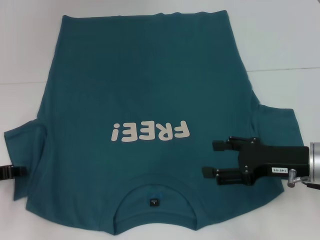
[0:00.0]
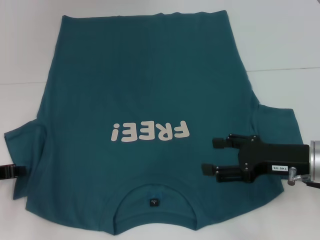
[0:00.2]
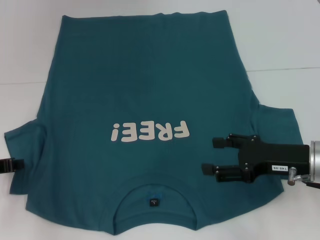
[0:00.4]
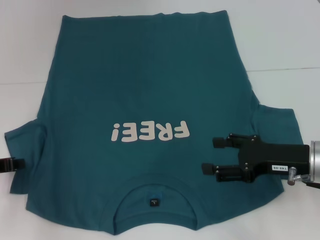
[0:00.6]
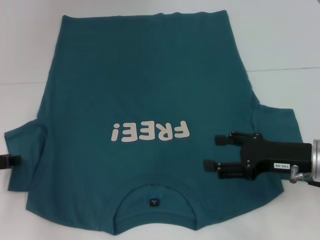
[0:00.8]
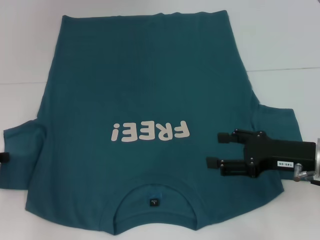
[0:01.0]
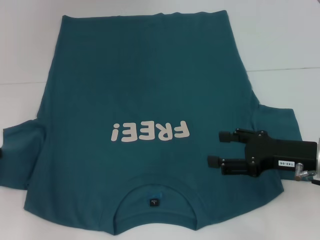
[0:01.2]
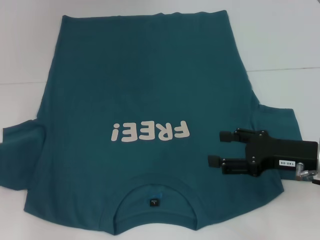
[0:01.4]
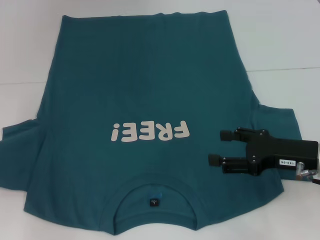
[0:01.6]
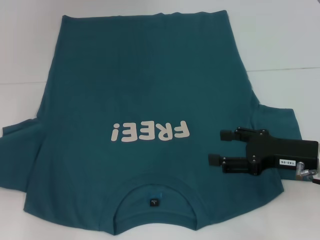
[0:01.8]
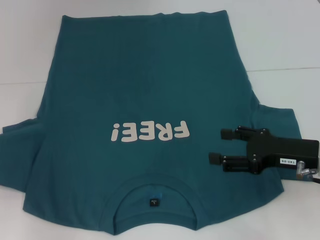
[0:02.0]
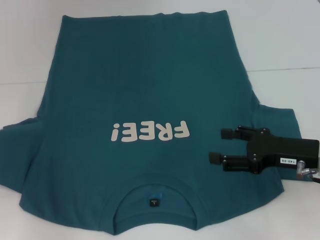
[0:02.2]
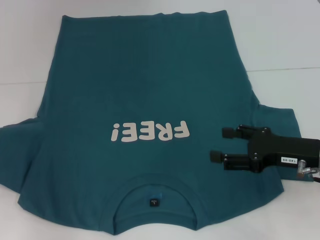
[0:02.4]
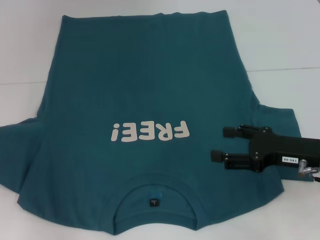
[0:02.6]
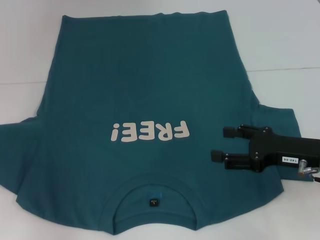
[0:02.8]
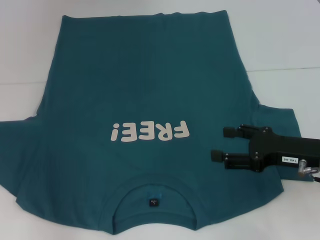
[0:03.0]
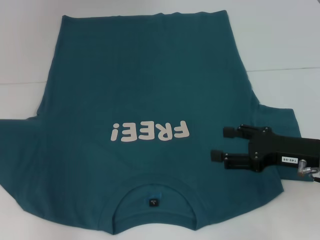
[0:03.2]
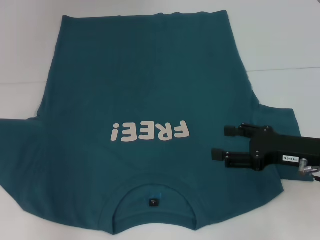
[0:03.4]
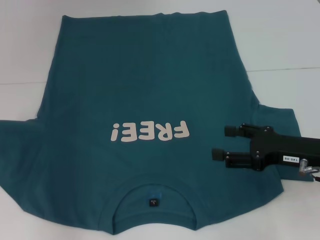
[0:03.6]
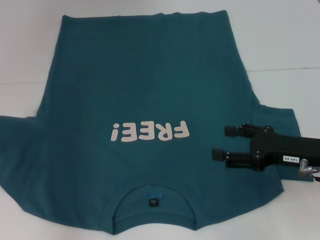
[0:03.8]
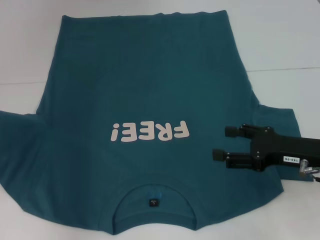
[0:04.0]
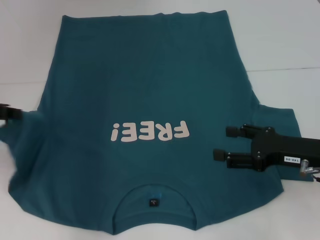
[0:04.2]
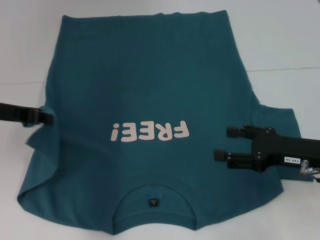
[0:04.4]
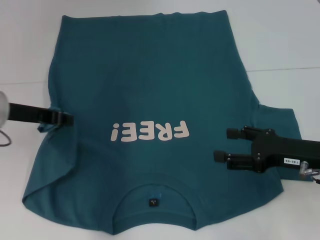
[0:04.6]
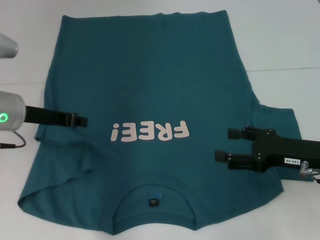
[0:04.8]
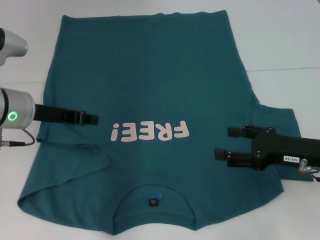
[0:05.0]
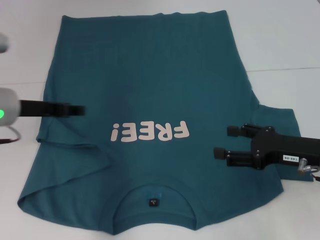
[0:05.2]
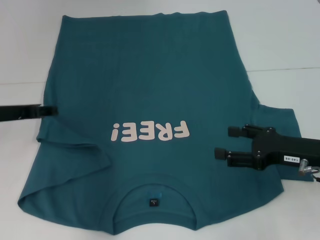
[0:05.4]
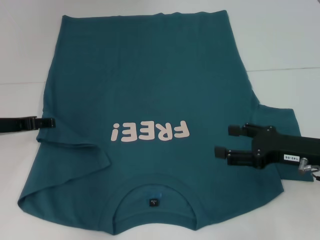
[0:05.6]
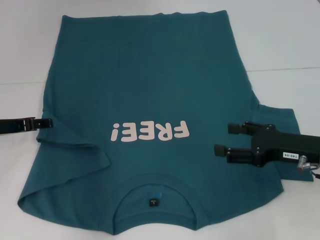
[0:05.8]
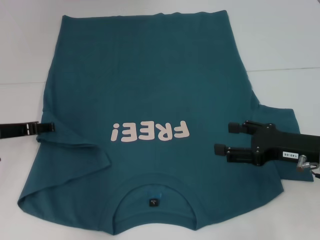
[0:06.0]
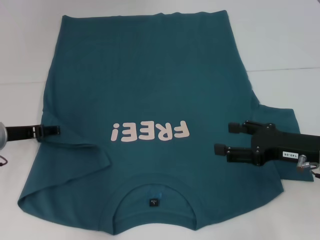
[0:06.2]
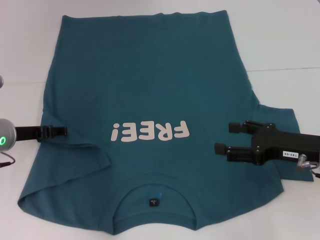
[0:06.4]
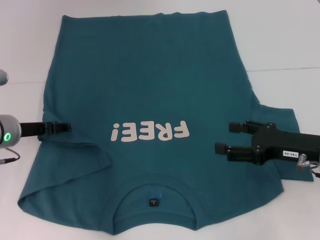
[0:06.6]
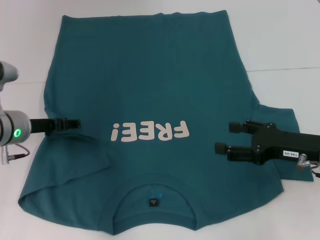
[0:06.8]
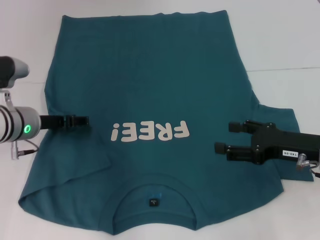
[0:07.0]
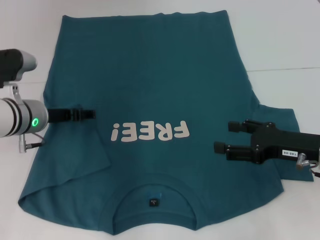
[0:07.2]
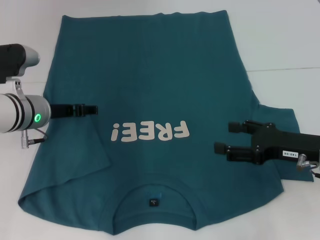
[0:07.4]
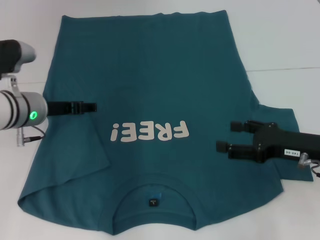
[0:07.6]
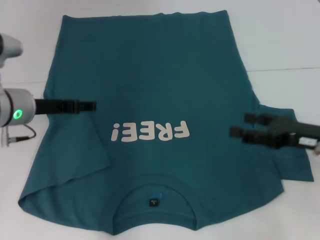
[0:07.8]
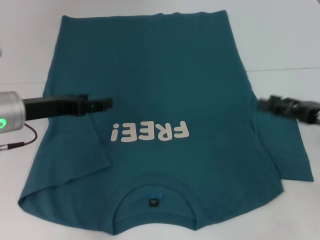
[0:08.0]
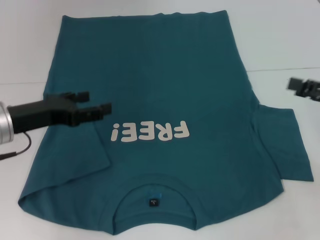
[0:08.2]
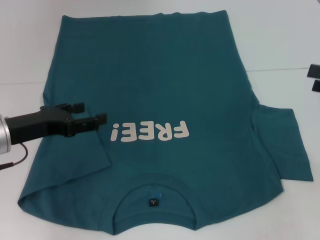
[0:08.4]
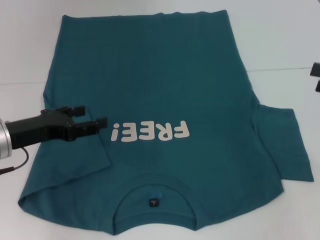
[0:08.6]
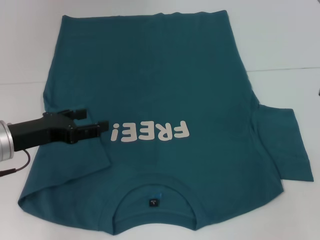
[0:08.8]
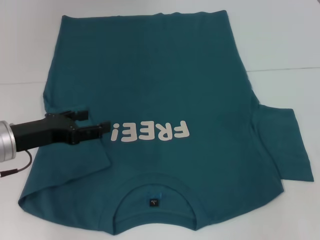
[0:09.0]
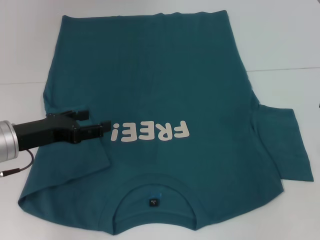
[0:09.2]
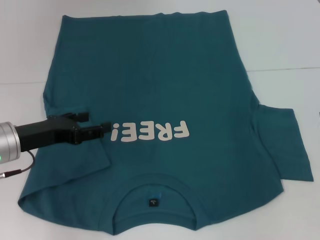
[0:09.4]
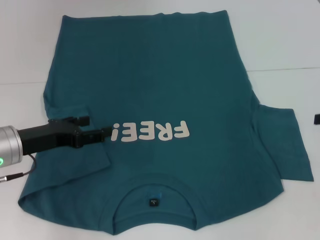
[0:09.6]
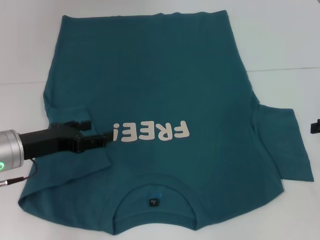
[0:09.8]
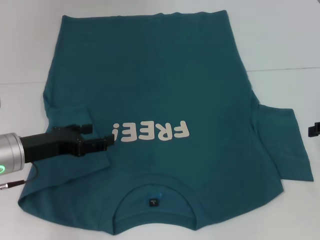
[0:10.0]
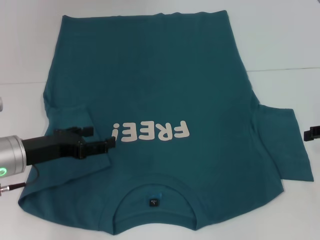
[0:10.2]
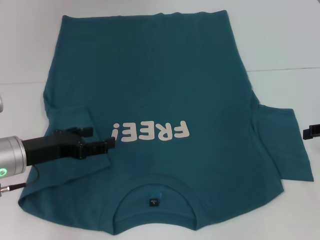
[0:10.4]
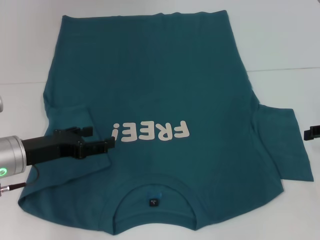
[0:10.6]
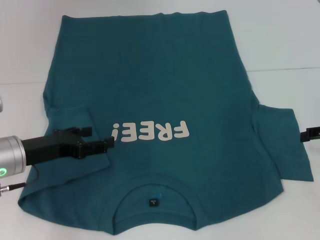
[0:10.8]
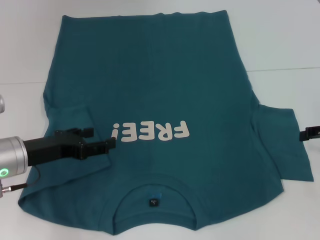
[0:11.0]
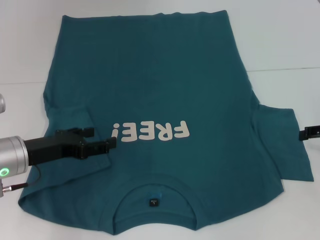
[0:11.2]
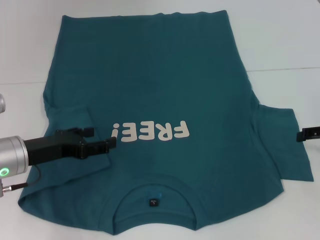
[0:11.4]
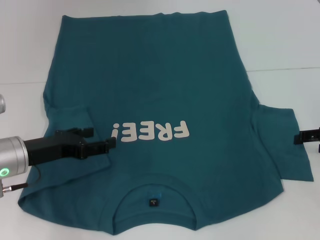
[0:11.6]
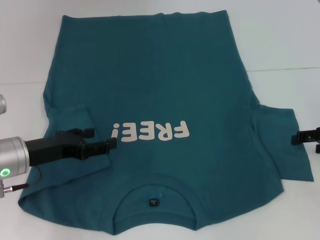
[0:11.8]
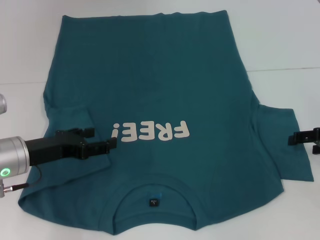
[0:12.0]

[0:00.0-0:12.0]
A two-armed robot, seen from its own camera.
Step, 0:00.0 to 0:07.4: Fold the bottom left sleeve with your left hand.
0:00.0 to 0:01.6: The left gripper moves approximately 5 cm, and closes.
0:01.6 to 0:03.0: There are only small adjustments of the grippers.
0:03.0 to 0:04.4: The left gripper travels to the right by about 10 cm.
0:04.4 to 0:06.0: The left gripper moves downward, some 10 cm, and opens its fingers.
0:06.0 to 0:07.6: The left gripper travels to the right by approximately 5 cm.
0:07.6 to 0:09.0: The left gripper travels backward by approximately 10 cm, while the right gripper shifts some 15 cm to the right and upward.
0:10.4 to 0:12.0: The grippers make only small movements.

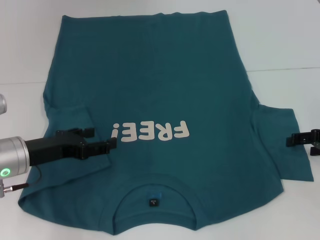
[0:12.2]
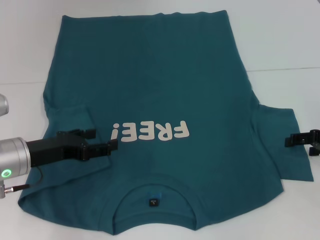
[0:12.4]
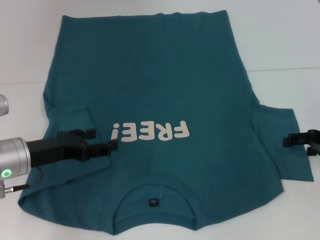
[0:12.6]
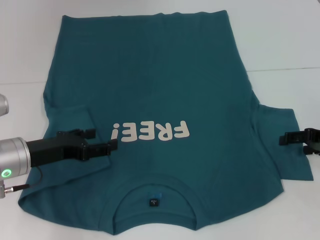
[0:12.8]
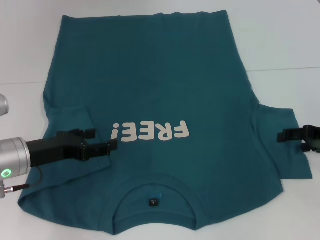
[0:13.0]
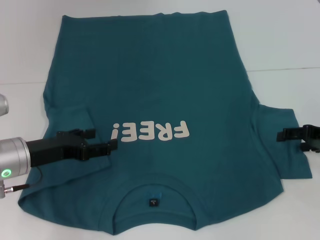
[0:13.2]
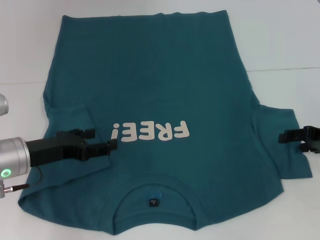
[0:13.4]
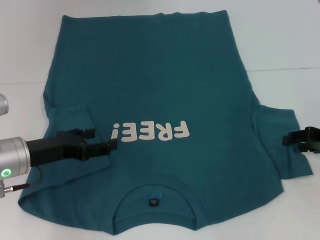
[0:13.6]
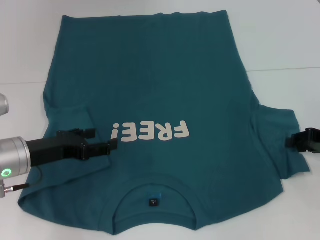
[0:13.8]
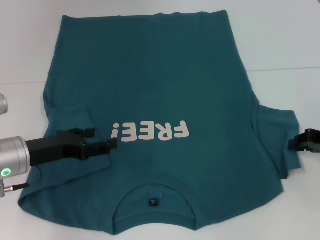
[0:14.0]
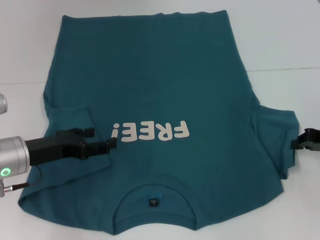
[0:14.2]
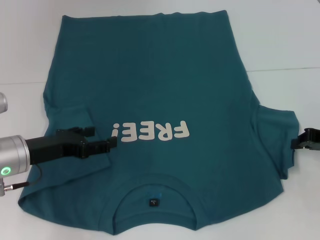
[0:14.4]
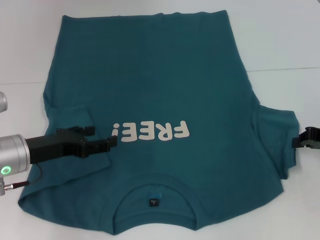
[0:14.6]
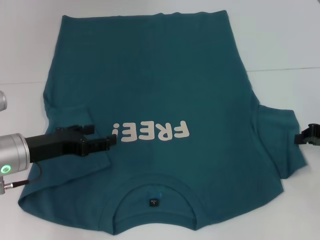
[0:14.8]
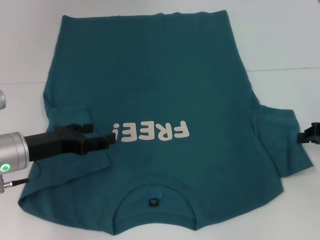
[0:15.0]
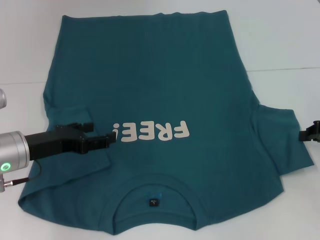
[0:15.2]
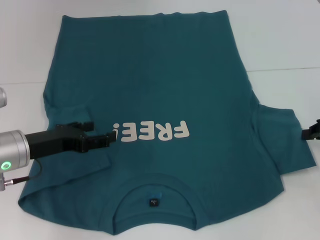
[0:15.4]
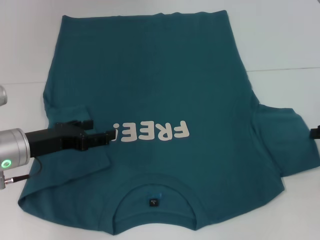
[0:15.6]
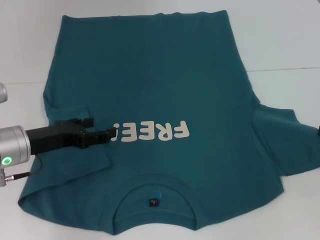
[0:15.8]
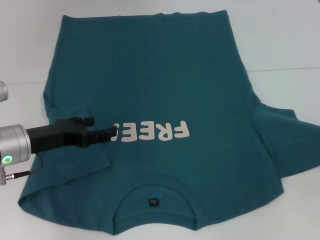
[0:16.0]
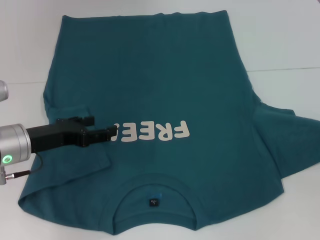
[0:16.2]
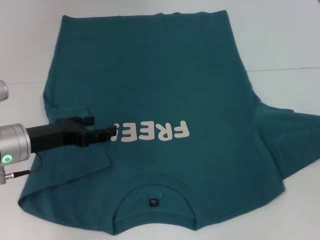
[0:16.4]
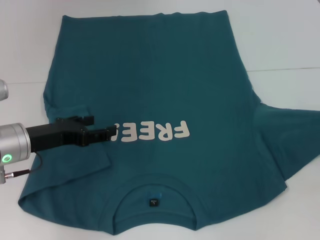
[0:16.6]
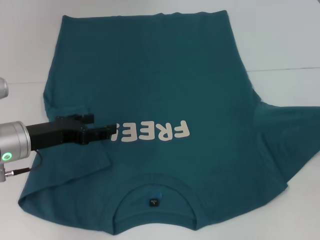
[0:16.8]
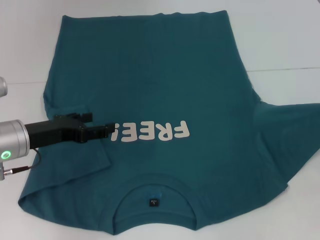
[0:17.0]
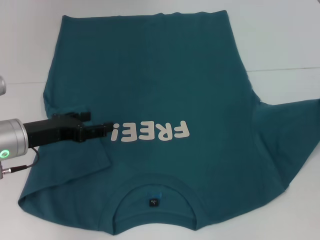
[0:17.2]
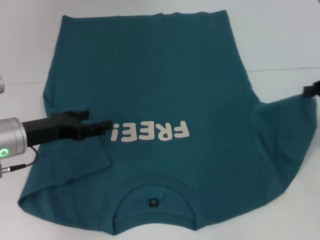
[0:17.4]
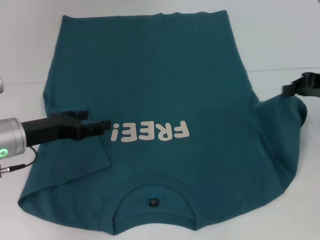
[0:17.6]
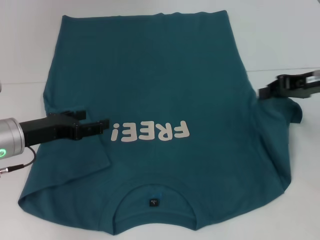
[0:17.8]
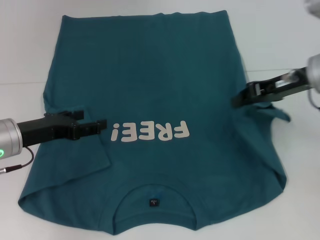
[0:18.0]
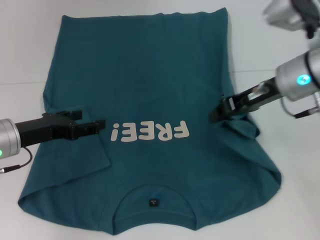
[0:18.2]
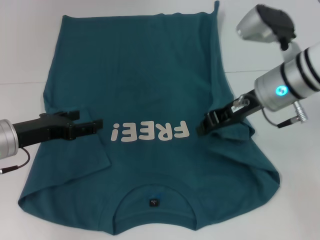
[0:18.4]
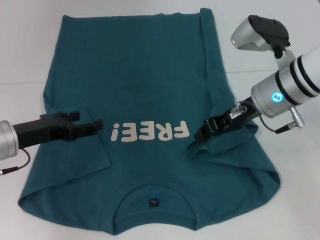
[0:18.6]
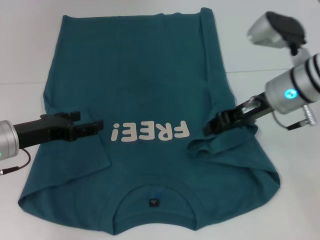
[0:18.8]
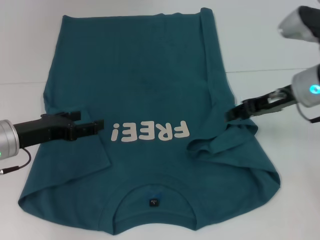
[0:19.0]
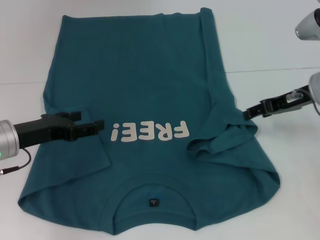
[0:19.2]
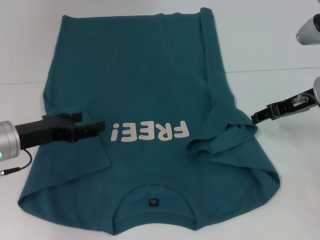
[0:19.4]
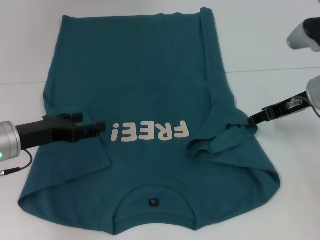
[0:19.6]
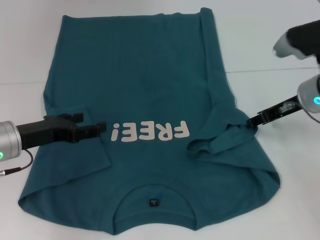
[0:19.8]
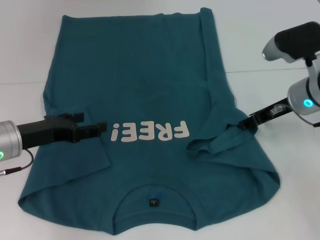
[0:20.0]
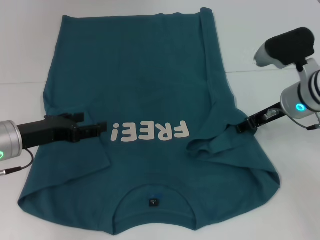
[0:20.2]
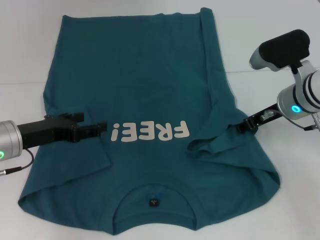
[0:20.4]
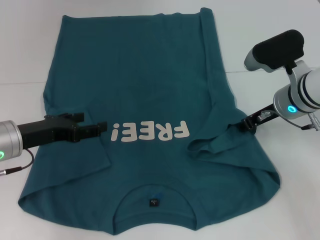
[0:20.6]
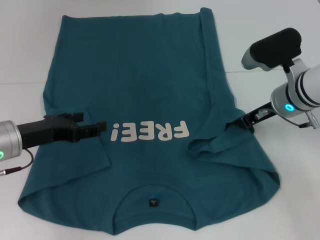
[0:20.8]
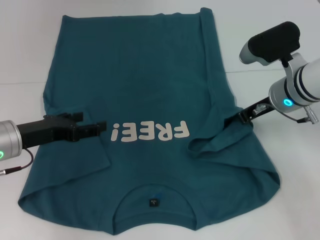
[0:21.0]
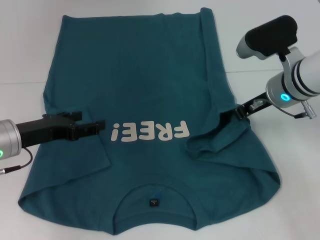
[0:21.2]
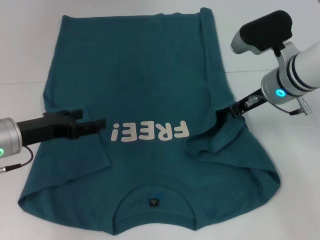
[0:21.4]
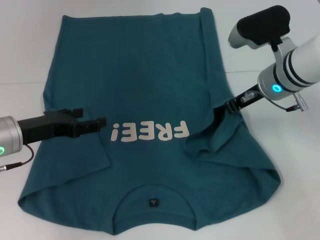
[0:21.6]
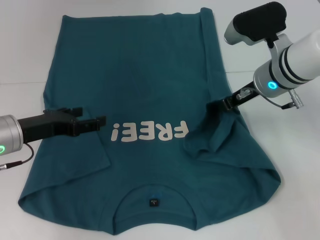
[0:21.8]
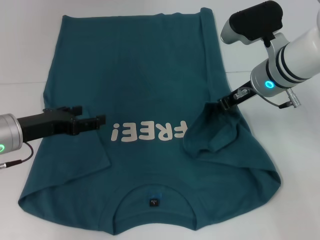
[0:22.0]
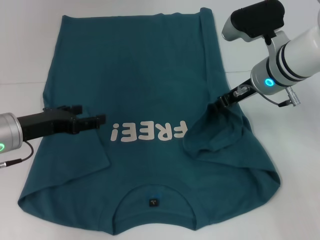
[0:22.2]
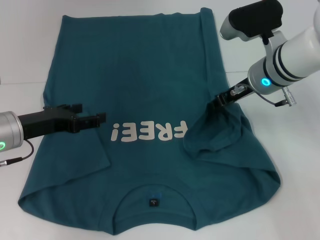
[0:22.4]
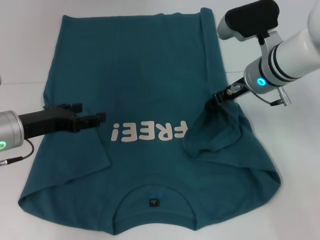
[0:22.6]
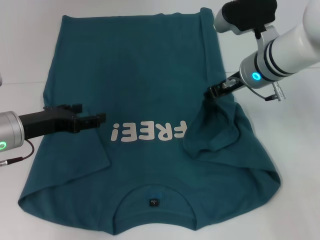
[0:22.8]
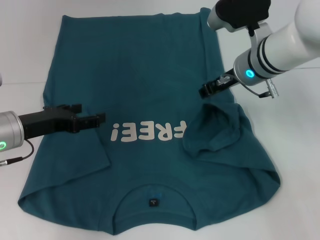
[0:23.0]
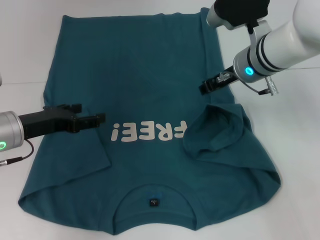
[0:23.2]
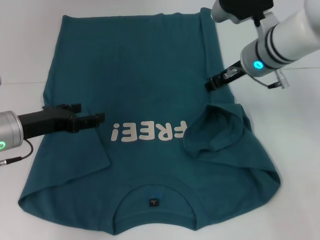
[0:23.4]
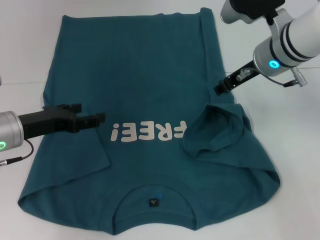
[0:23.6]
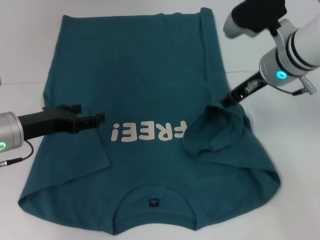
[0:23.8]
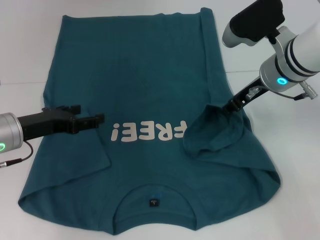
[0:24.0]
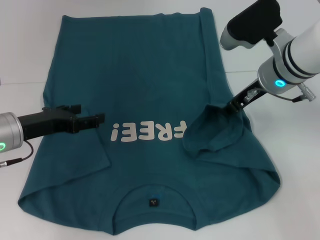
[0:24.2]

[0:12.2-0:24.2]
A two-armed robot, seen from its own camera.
0:12.2 to 0:13.8: The right gripper closes its fingers.
0:13.8 to 0:15.2: The right gripper closes its fingers.
0:15.2 to 0:16.6: The right gripper ends up roughly 5 cm from where it was.
0:16.6 to 0:18.2: The right gripper is displaced to the left by some 20 cm.
0:18.2 to 0:19.8: The right gripper moves about 5 cm, and opens its fingers.
0:19.8 to 0:21.2: The right gripper is displaced to the left by about 5 cm, and closes up.
0:21.2 to 0:22.6: The right gripper opens up.
0:22.6 to 0:24.2: There are only small adjustments of the grippers.
